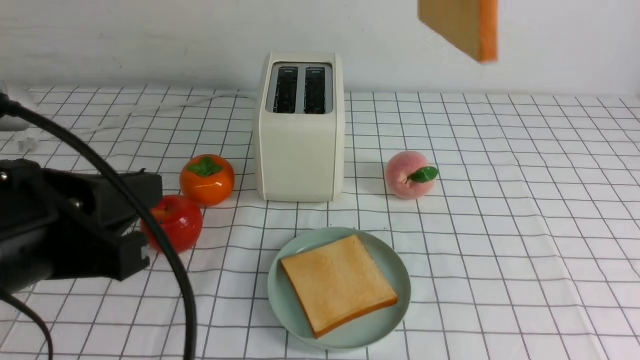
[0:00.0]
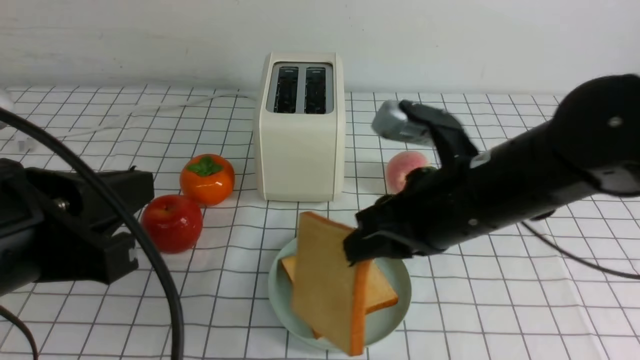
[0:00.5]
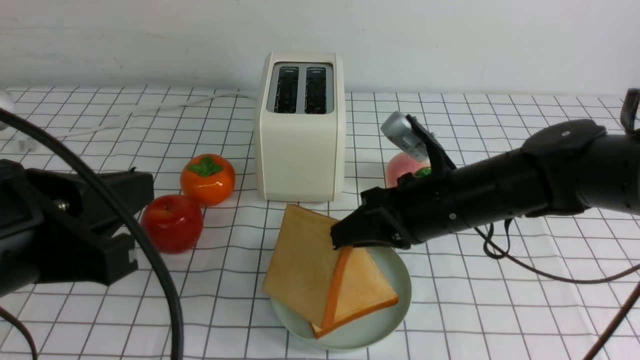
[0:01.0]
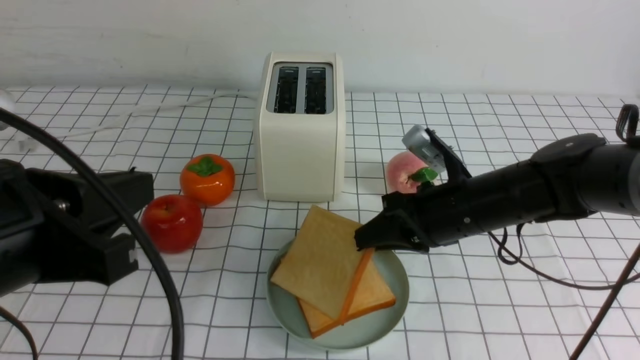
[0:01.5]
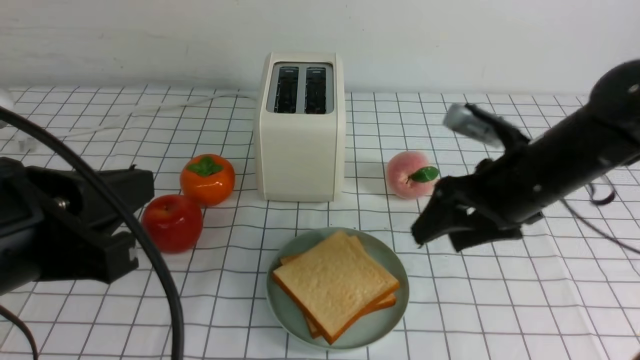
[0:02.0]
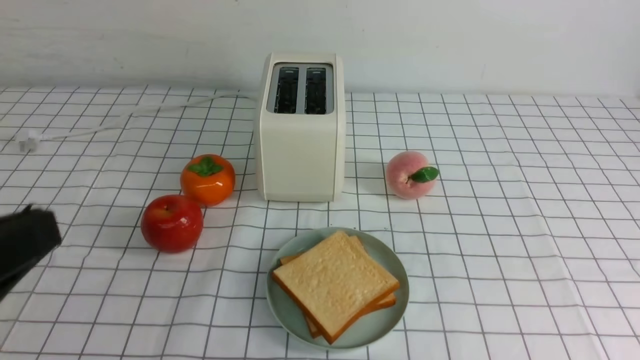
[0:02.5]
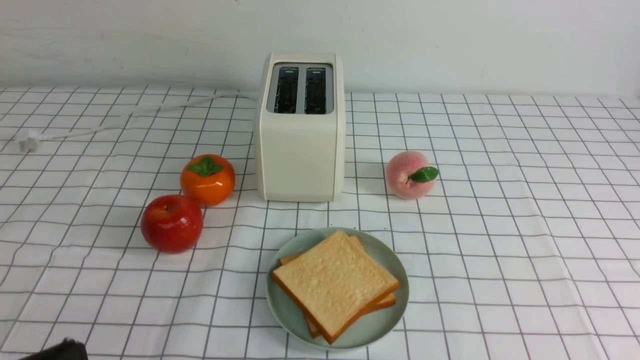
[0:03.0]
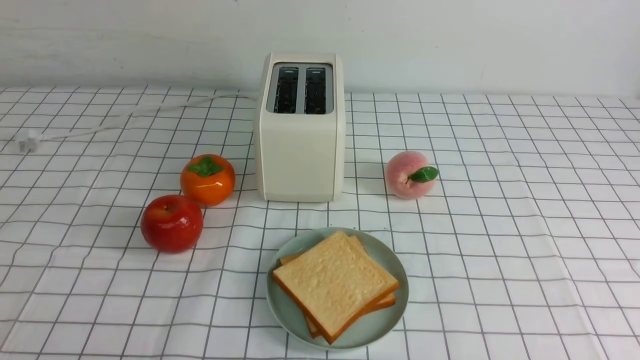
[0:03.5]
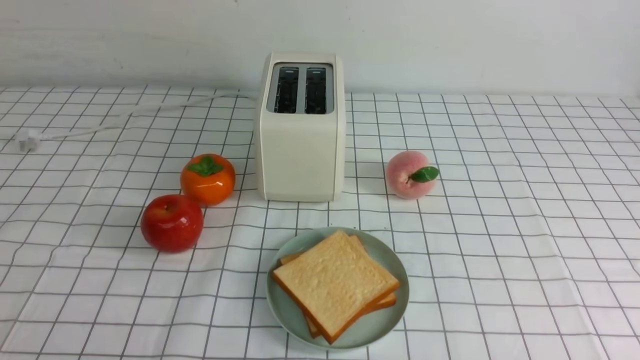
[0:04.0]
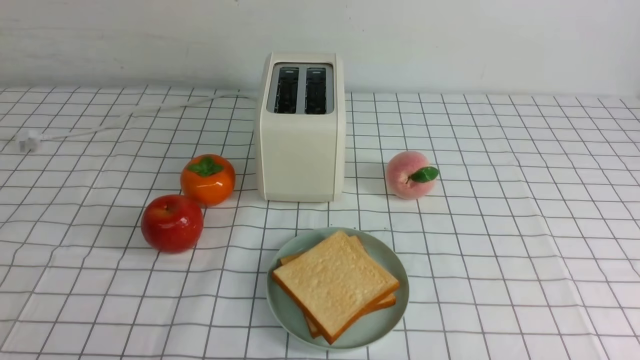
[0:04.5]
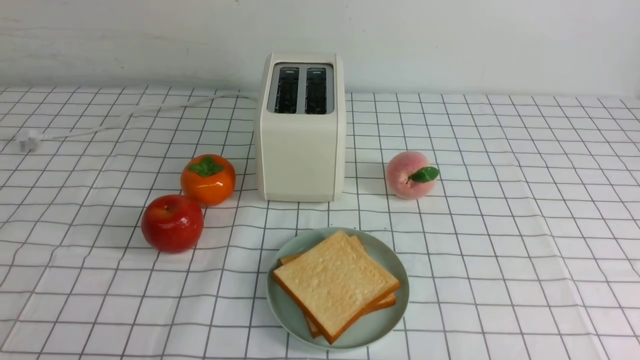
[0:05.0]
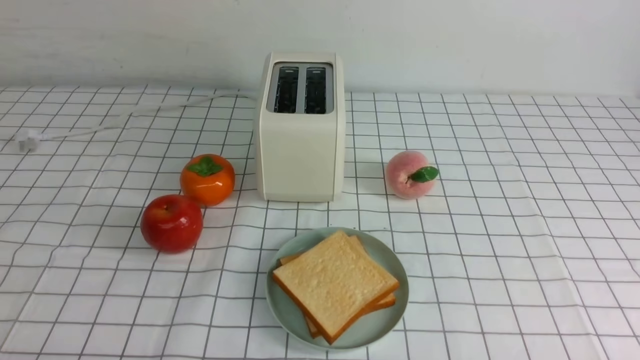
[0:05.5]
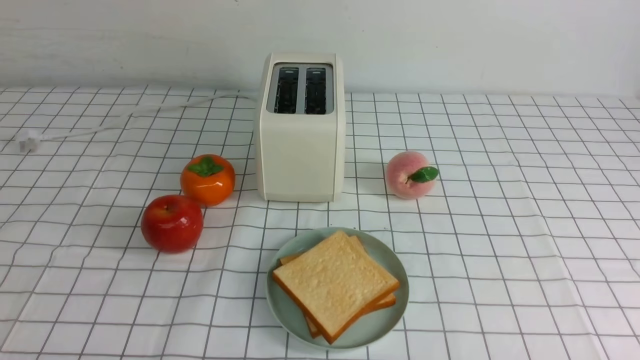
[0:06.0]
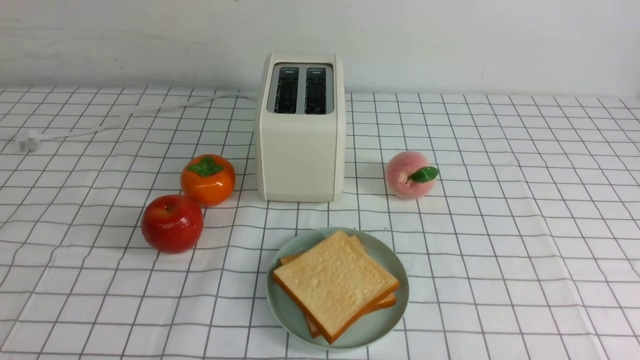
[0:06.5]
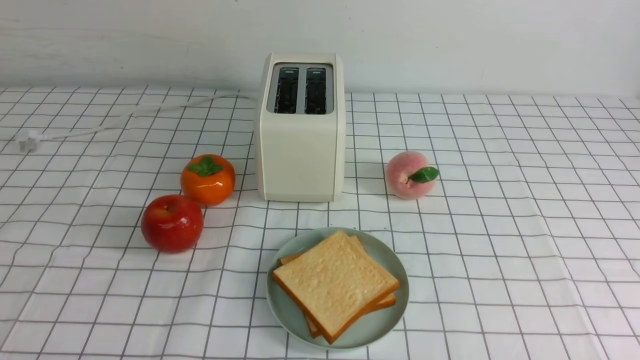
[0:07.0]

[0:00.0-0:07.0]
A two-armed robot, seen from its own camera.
Task of the whole recording: take toasted bread from bread machine on white checkered table place on plate.
Step, 0:00.0 to 0:02.0: use the right arm to put a slice of bread into the plate.
0:00.0 to 0:02.0: The right gripper shifts about 20 cm downward, and opens.
0:02.0 to 0:03.5: The left gripper travels downward and backward by some 15 cm, while the right gripper heads backward, covering approximately 25 cm, and closes.
